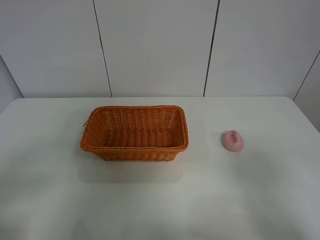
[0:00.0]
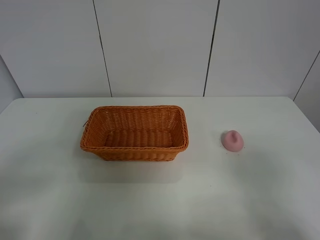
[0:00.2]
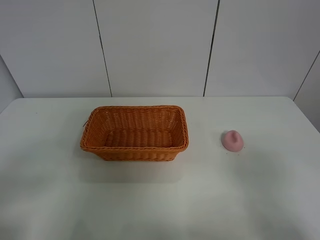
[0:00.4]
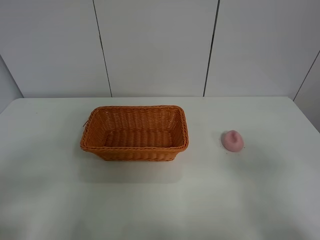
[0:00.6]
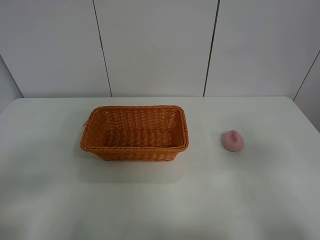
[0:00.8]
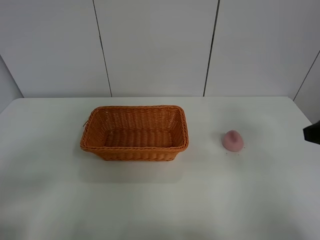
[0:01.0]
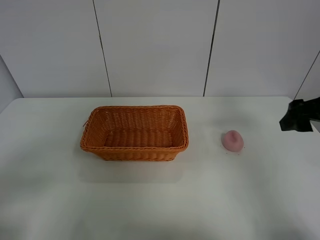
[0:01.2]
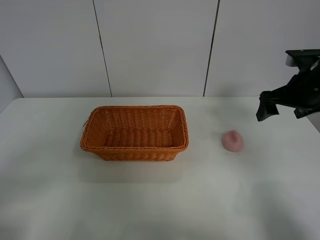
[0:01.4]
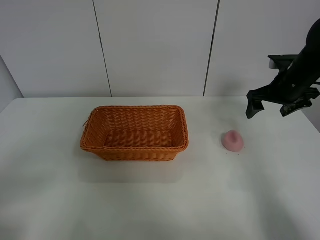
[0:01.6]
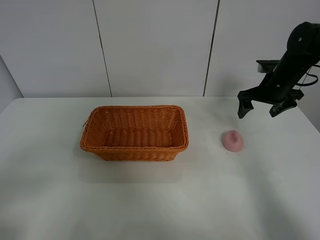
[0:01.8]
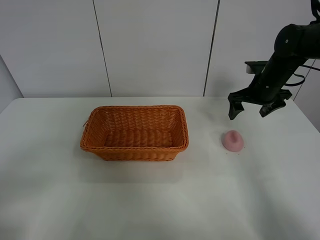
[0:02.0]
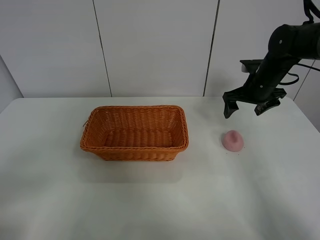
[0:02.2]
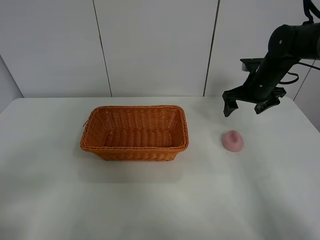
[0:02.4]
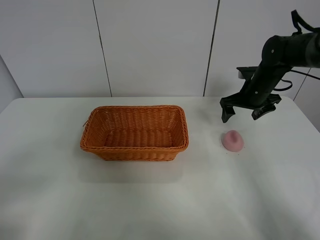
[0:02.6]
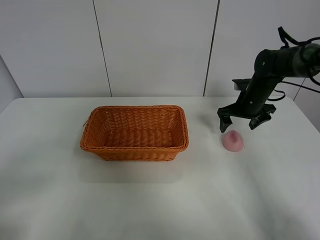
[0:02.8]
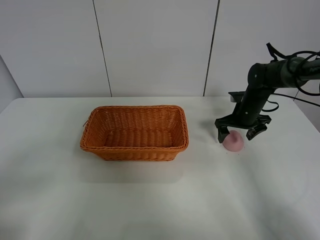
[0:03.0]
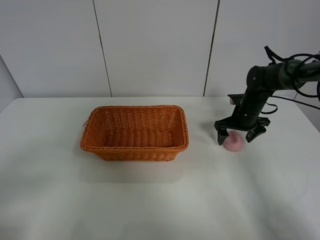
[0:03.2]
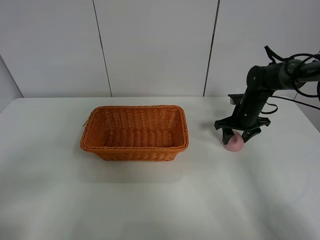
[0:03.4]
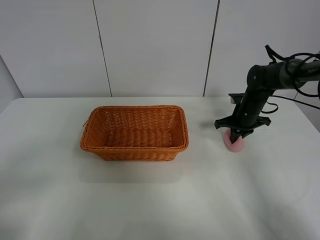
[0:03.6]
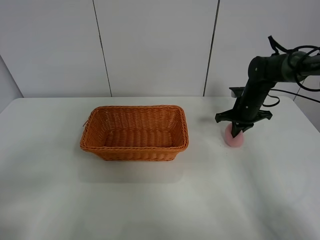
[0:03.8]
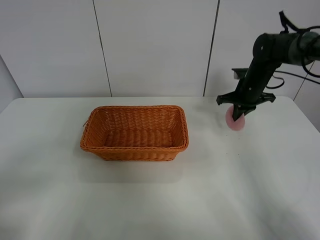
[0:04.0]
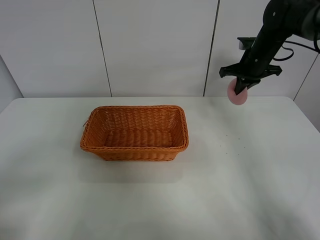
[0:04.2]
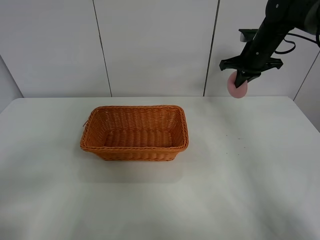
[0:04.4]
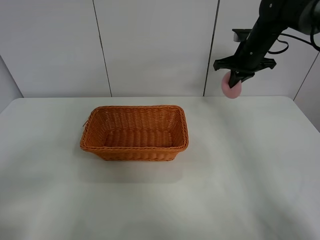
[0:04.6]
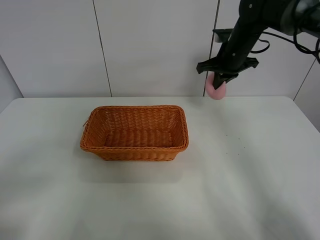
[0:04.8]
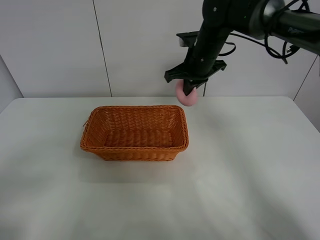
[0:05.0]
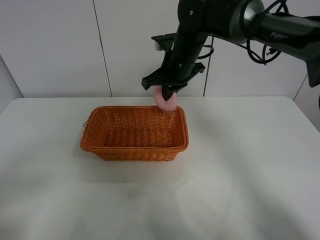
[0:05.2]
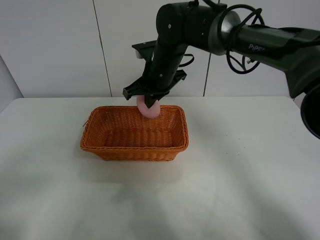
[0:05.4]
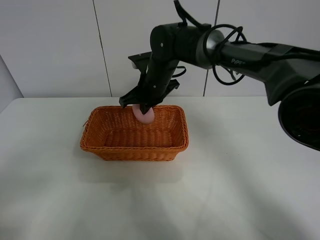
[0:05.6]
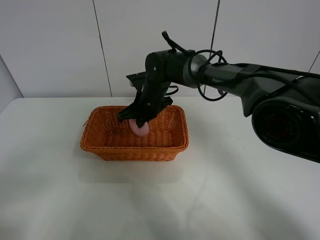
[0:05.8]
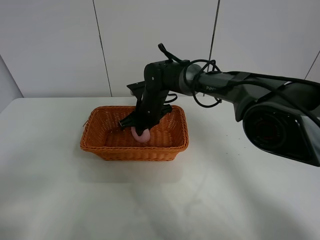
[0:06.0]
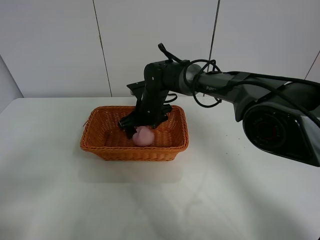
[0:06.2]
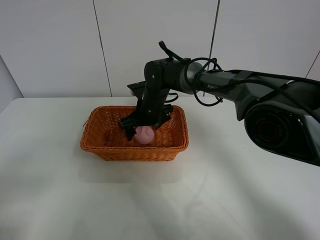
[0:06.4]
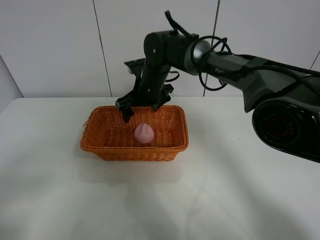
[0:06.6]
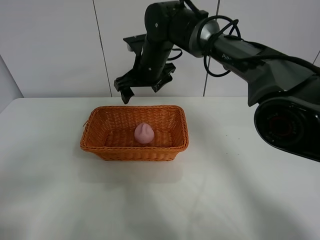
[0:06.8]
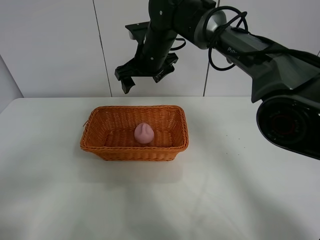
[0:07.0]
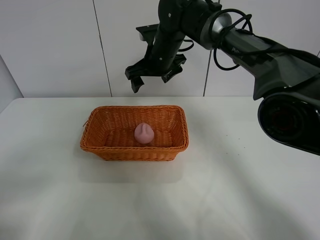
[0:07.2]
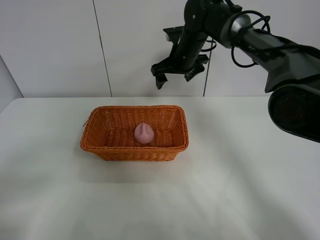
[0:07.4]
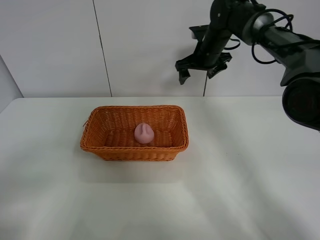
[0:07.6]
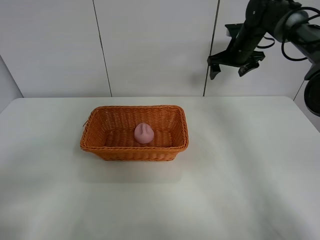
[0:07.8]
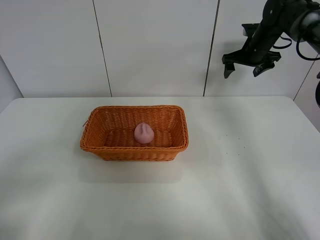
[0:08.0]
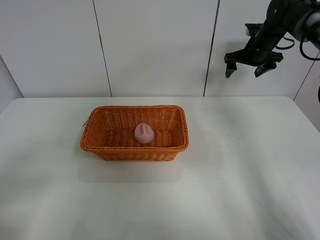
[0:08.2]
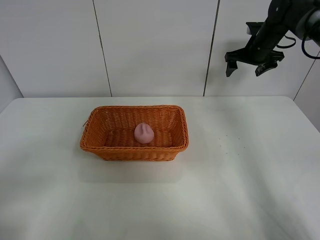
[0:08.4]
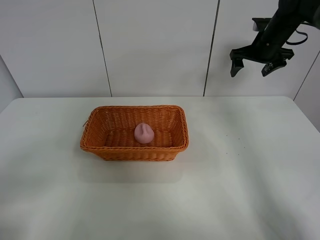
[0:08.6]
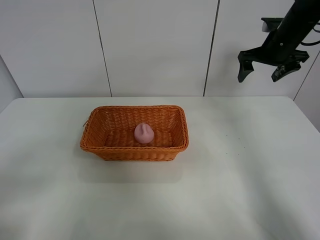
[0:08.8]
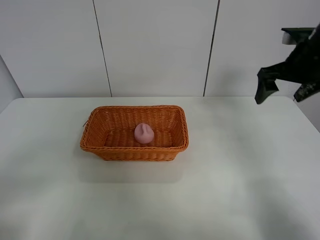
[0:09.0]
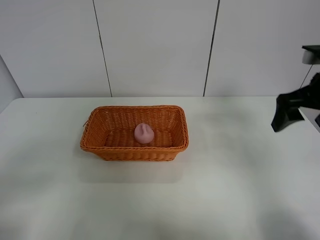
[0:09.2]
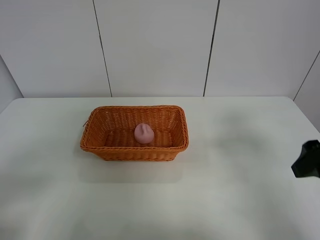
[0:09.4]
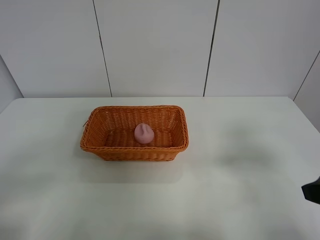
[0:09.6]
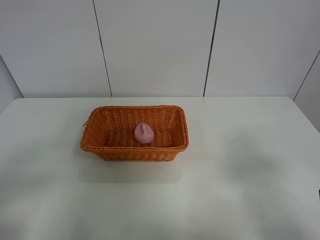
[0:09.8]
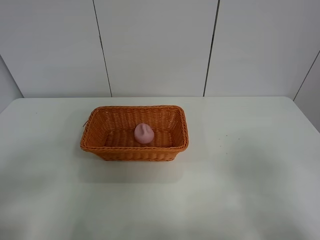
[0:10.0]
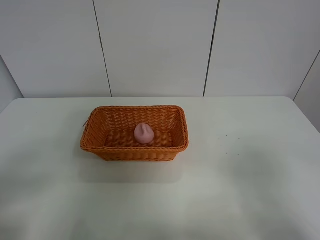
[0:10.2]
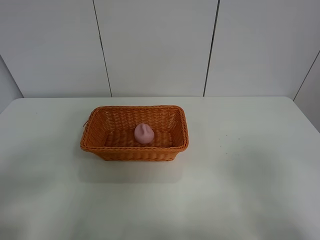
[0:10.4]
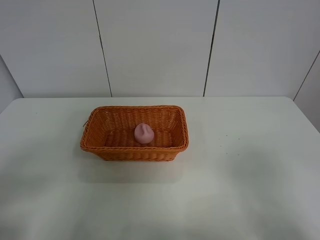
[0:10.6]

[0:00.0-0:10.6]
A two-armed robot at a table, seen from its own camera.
Step, 0:00.0 to 0:03.6: Grasp the peach with right gripper.
Step, 0:03.8 to 0:06.8: Place the peach in the basket with right gripper.
0:00.0 to 0:01.6: The right gripper goes some 40 cm forward.
0:01.6 to 0:03.0: The right gripper heads downward, covering some 10 cm.
0:03.0 to 0:04.6: The right gripper shifts about 15 cm upward, and closes up.
0:04.6 to 0:06.0: The right gripper goes roughly 25 cm to the left and downward.
0:06.0 to 0:07.6: The right gripper heads to the right, upward and forward, covering approximately 20 cm, and opens up.
0:07.6 to 0:09.0: The right gripper moves backward and to the right, approximately 20 cm.
0:09.0 to 0:10.6: The right gripper shifts approximately 30 cm backward.
